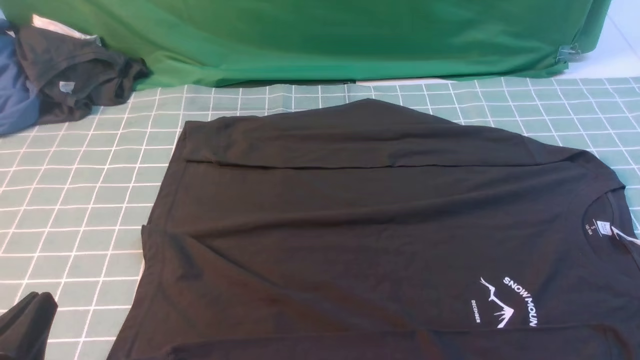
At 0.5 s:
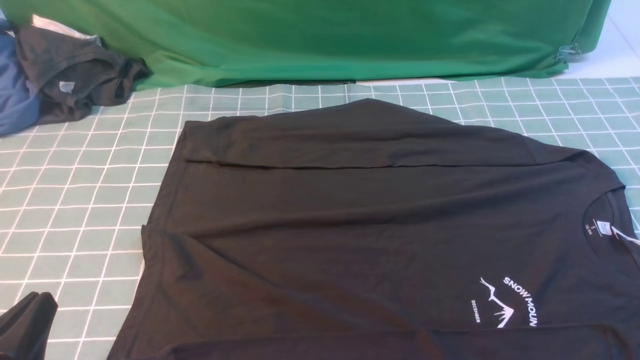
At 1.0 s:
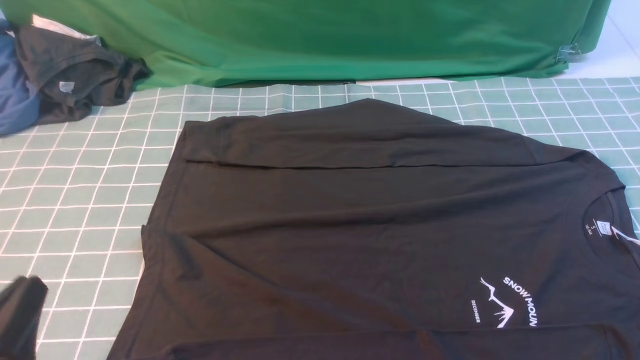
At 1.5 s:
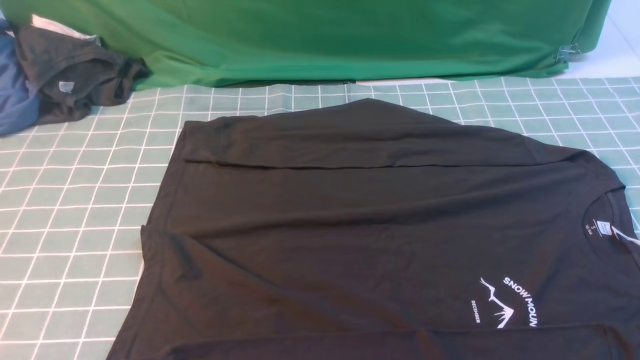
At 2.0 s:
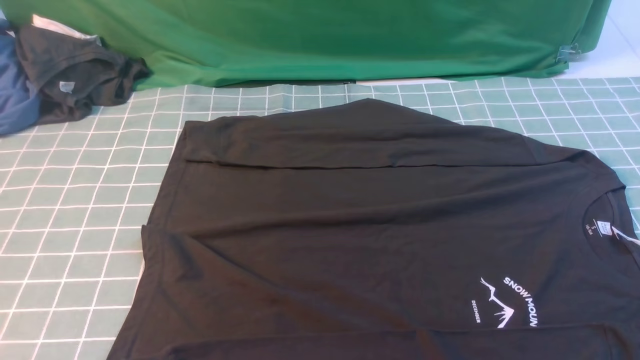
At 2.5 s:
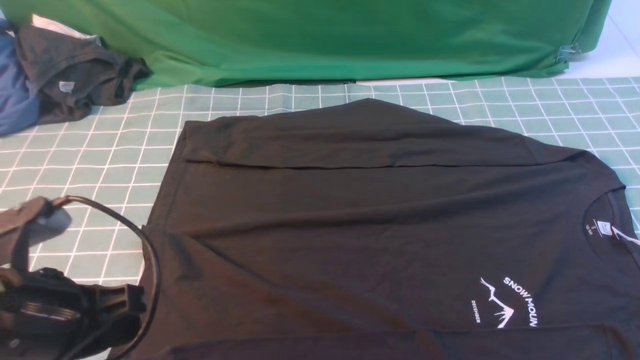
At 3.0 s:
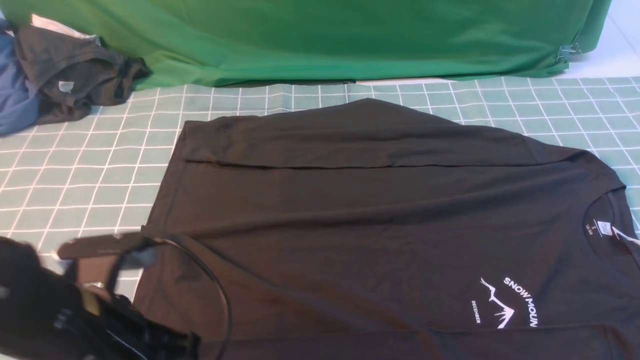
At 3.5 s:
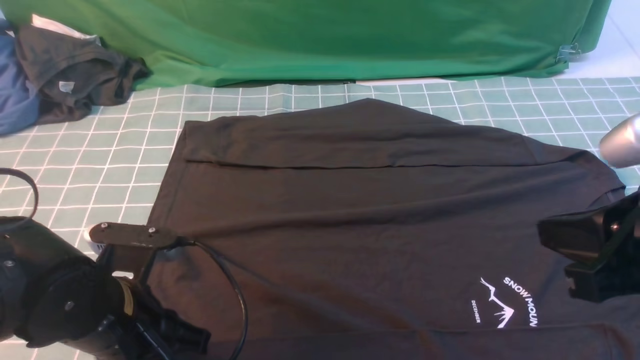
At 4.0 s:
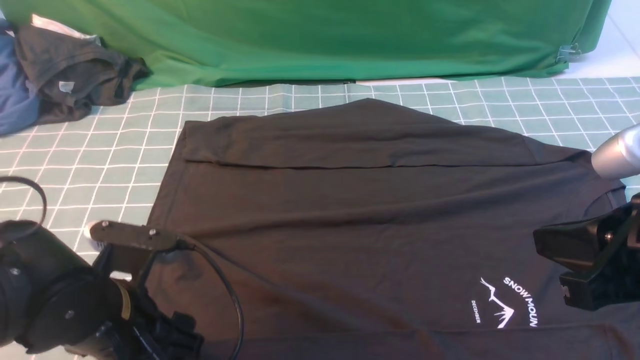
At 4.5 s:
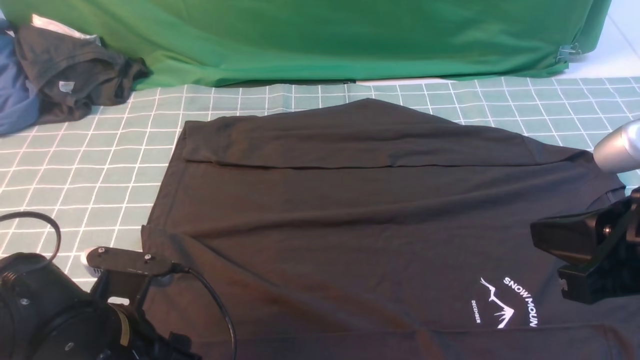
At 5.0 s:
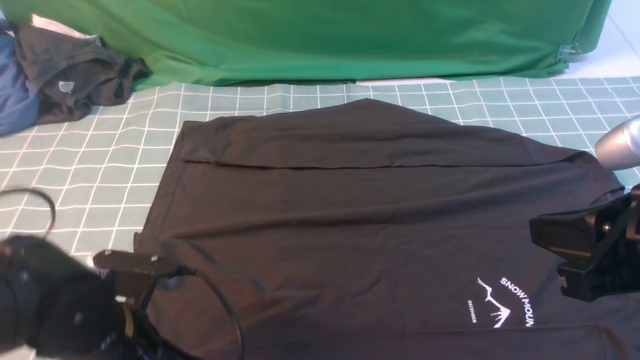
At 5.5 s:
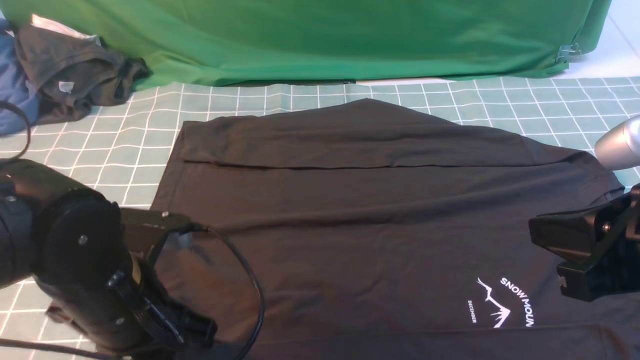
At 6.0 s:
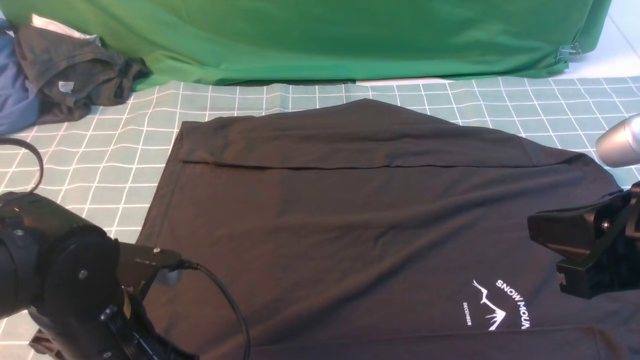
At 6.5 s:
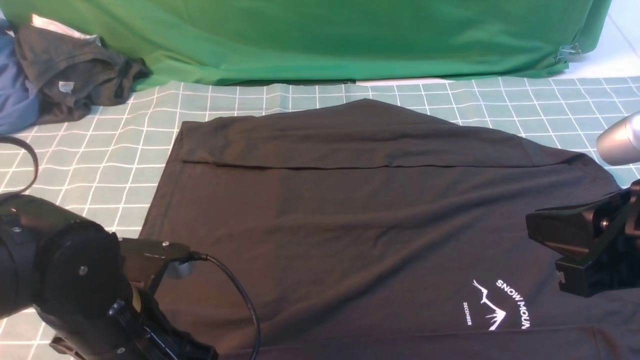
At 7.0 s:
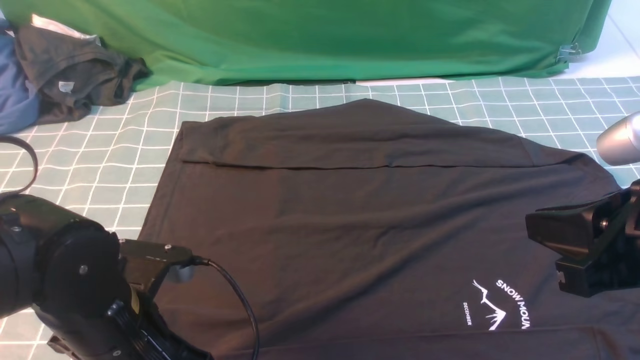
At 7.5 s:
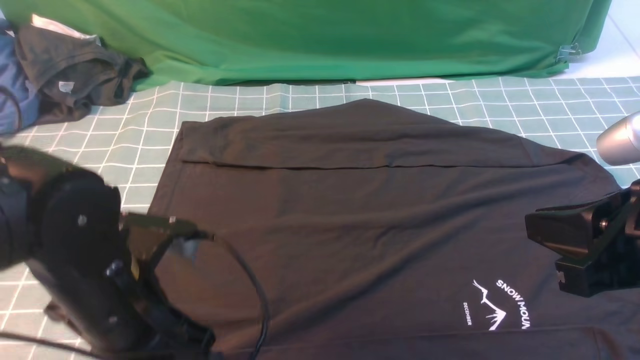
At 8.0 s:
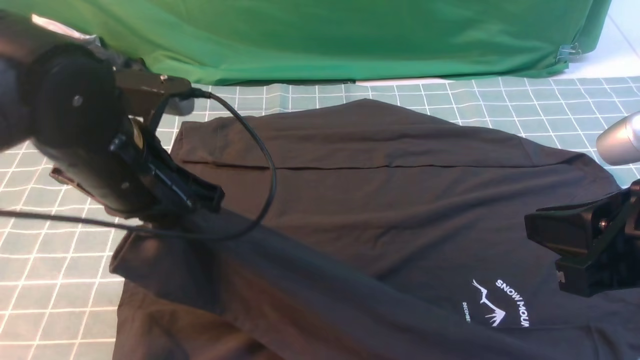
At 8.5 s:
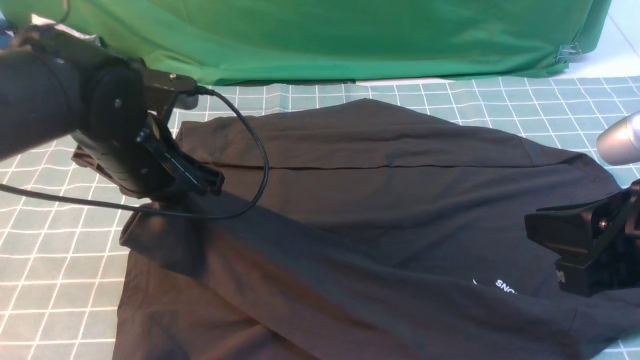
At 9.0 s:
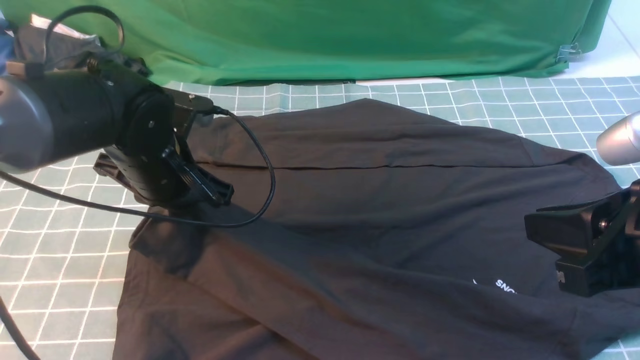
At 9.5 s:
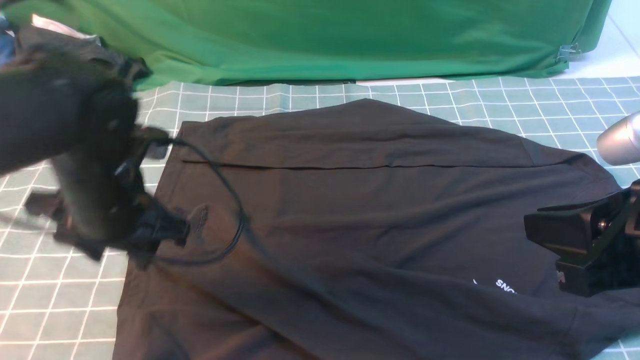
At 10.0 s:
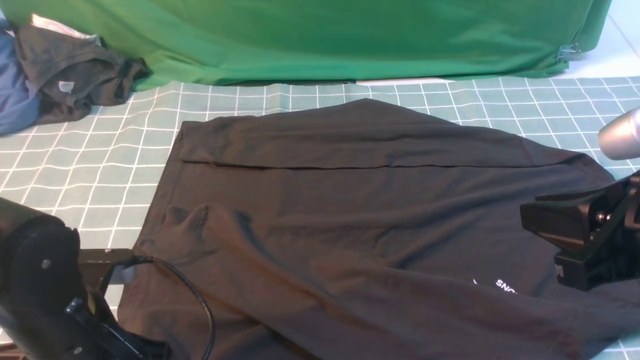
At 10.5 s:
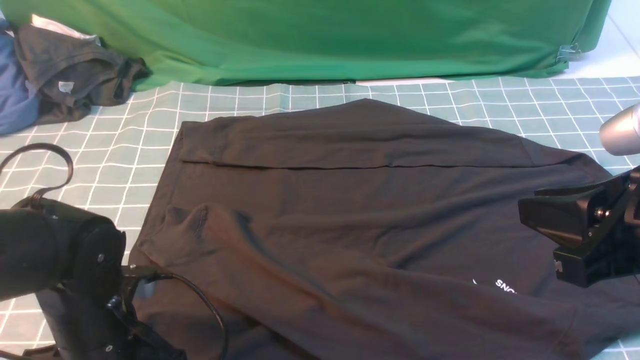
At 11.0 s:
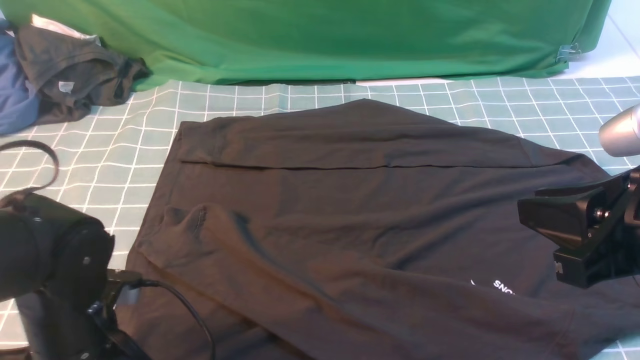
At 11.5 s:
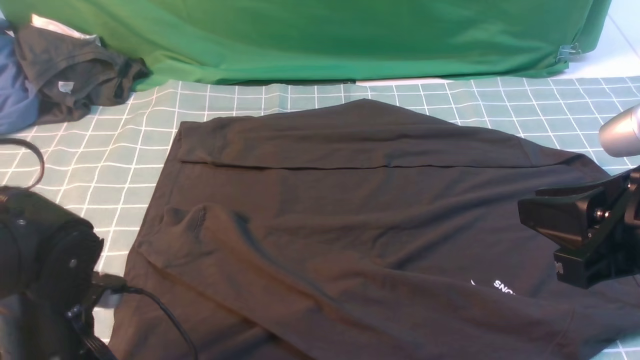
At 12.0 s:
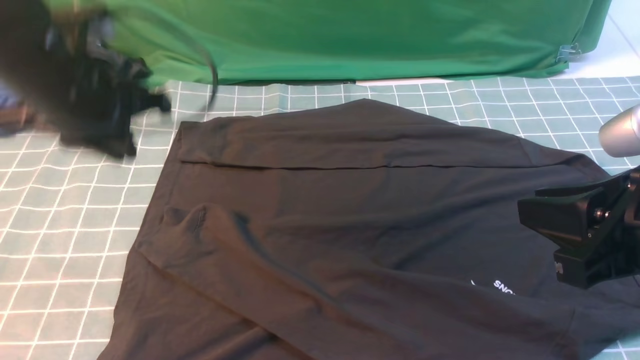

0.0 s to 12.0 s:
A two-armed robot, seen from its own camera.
Step, 0.0 to 7.5 s: use the left arm to clamp the cuff closest to it.
Step, 8.0 to 9.0 s: use the left arm to drag and place the cuff at the centered position on the left edge of the fabric.
0.0 to 2.0 s: The left gripper goes about 10 cm upward.
2.0 to 4.0 s: The right gripper travels to the left, forward and upward by roughly 15 cm, and closes up. Meanwhile the left gripper goes roughly 15 cm downward, forward and to the right, and opens up.
4.0 to 6.0 s: The left gripper closes its fingers.
6.0 to 8.0 s: The left gripper moves forward and upward, about 10 cm, and opens and closes again.
8.0 to 10.0 s: The left gripper is displaced downward and backward by approximately 10 cm, and opens its fingers.
10.0 to 12.0 s: The left gripper travels forward and upward by roughly 20 cm, and closes up.

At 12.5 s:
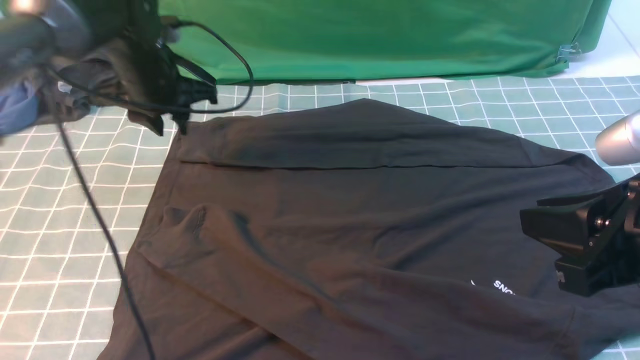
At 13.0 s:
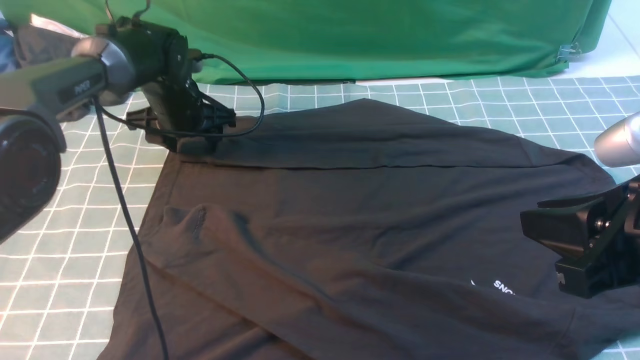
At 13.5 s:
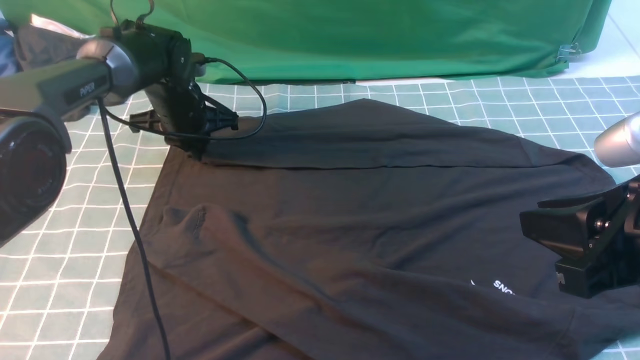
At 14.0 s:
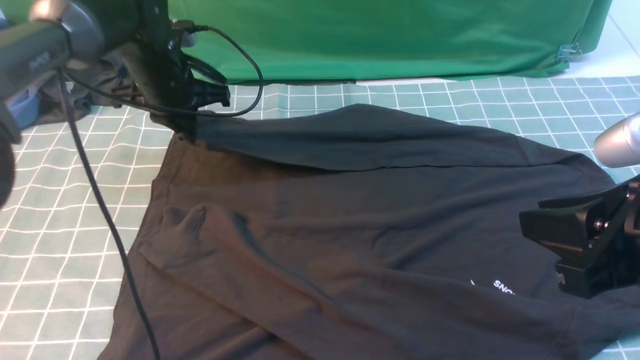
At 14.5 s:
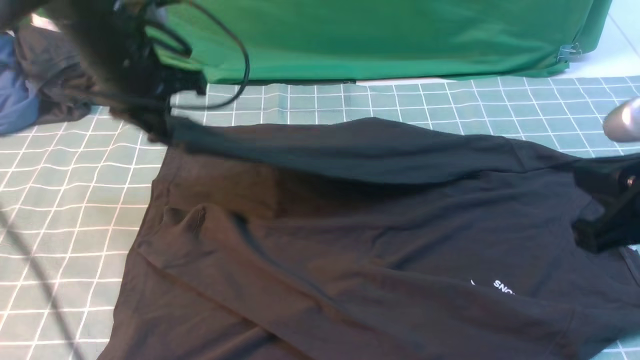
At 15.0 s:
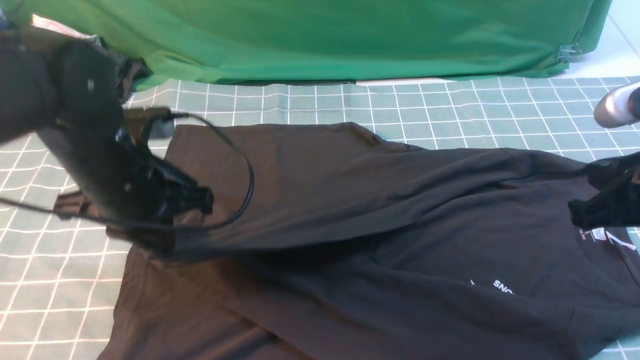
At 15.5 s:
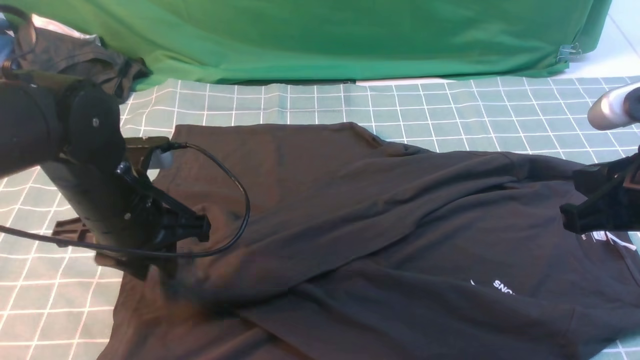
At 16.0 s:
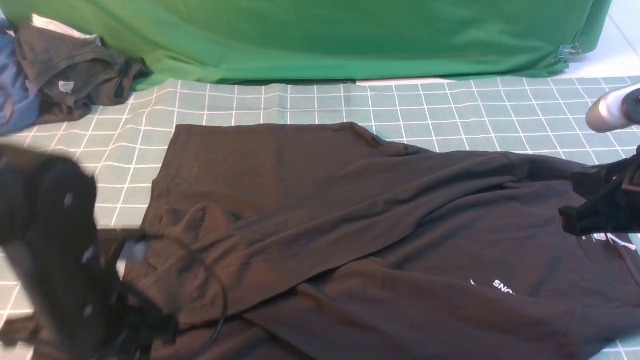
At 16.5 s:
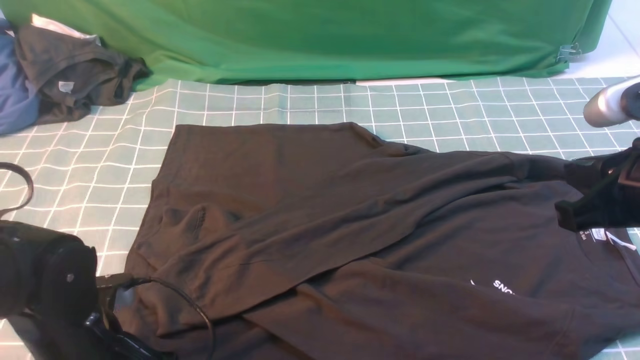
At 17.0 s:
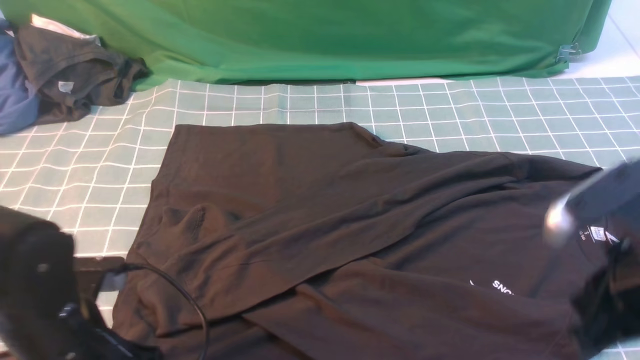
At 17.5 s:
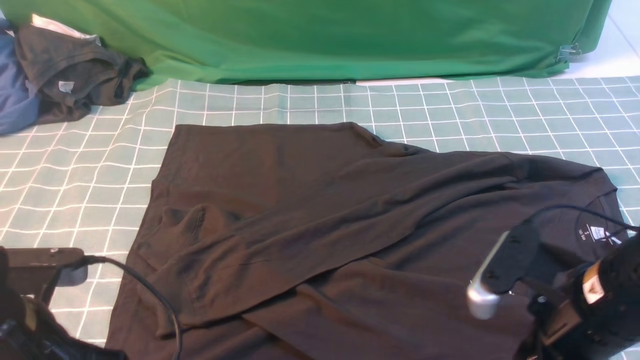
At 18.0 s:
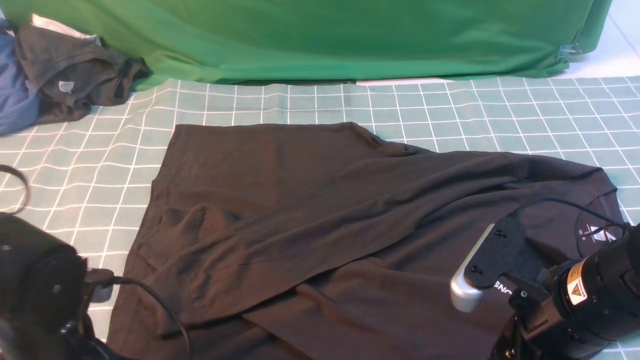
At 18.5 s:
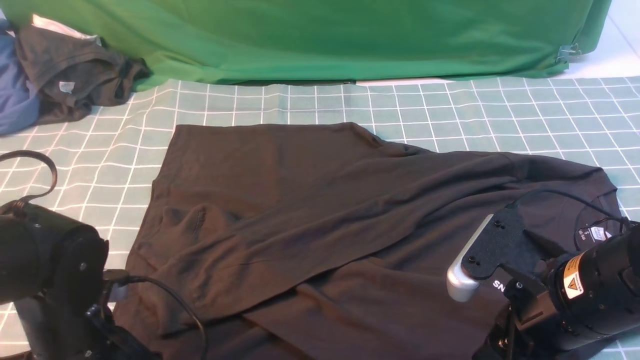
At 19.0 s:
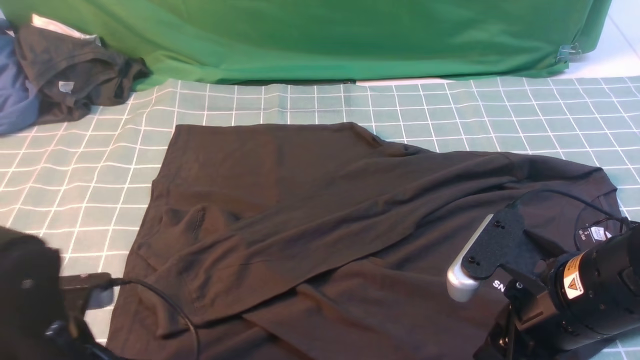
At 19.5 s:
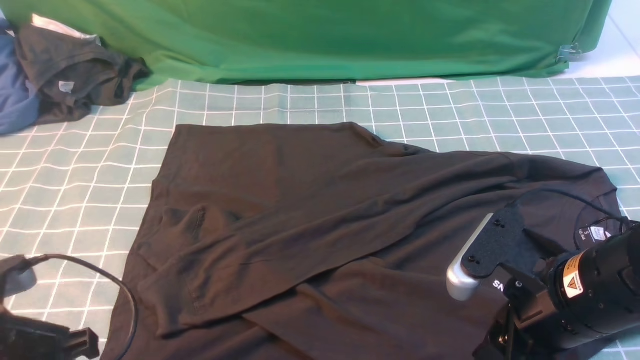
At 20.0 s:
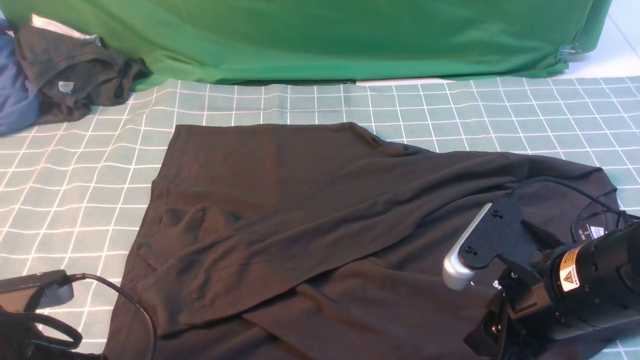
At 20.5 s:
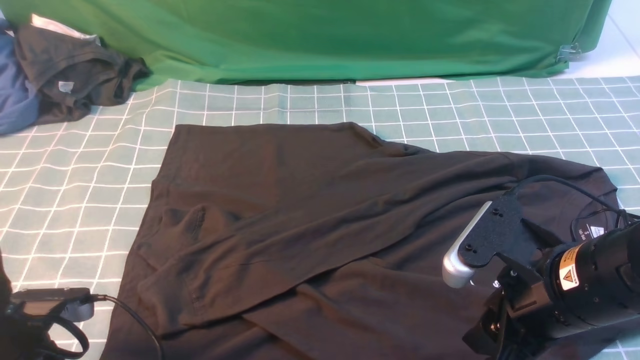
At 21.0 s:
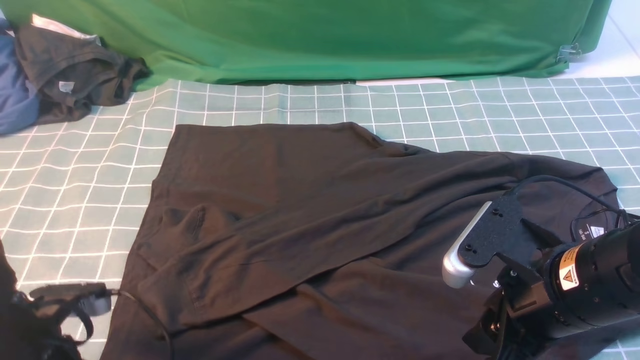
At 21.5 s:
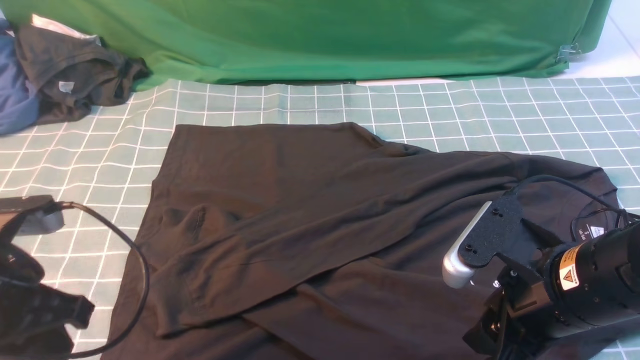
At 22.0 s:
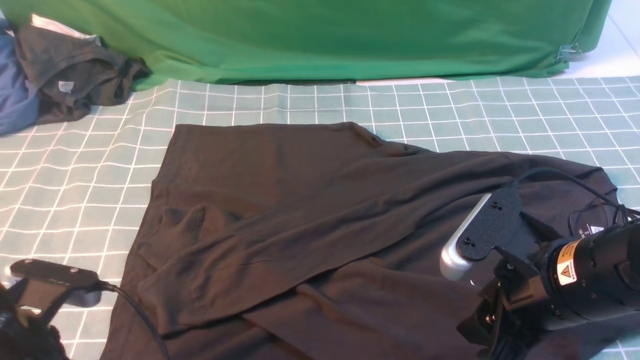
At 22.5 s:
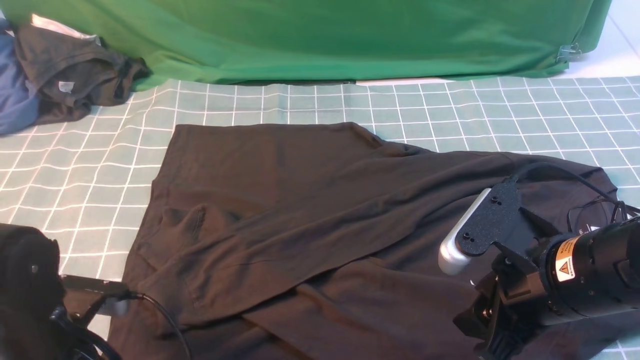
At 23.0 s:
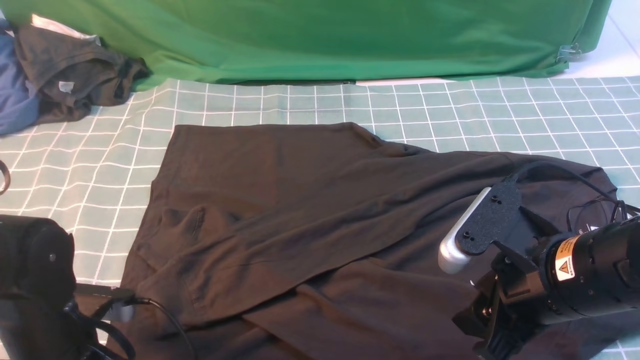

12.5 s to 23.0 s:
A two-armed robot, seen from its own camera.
Step, 14.0 to 15.5 s: use the left arm to drag and drop the cuff onto the cuff closest to the left arm.
12.5 to 14.5 s: The left gripper moves backward and upward, about 10 cm, and closes up.
14.5 to 16.5 s: The left gripper moves backward and downward, approximately 25 cm, and opens.
16.5 to 19.0 s: The right gripper goes some 10 cm downward and to the left, and opens its fingers. The left gripper goes up and down, some 5 cm each way, reversing 2 times, and closes its fingers.
19.0 to 21.0 s: The left gripper moves about 5 cm, and opens, then closes again.
21.0 to 23.0 s: The left gripper reaches roughly 5 cm upward, then returns, and opens, then closes once more.
